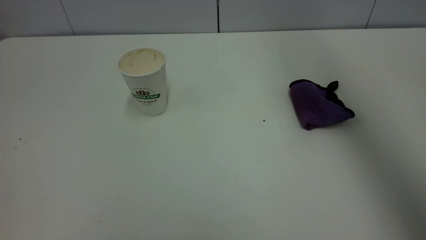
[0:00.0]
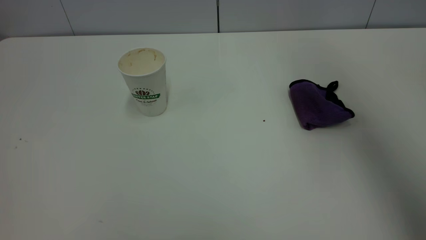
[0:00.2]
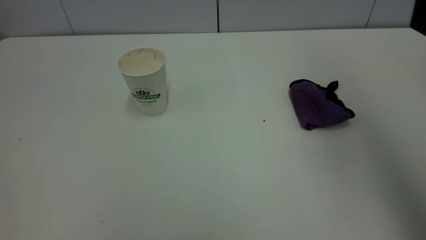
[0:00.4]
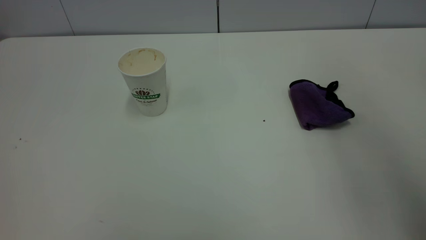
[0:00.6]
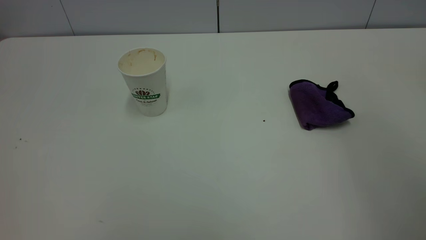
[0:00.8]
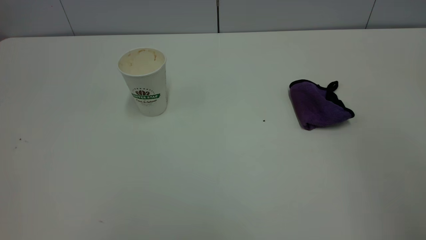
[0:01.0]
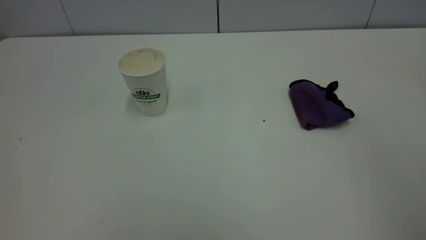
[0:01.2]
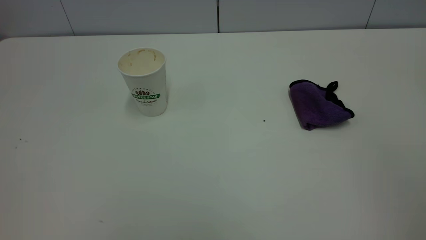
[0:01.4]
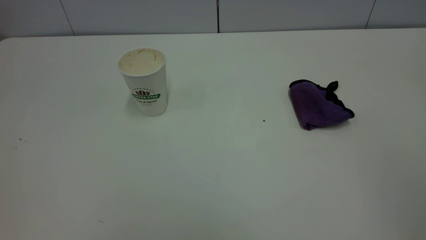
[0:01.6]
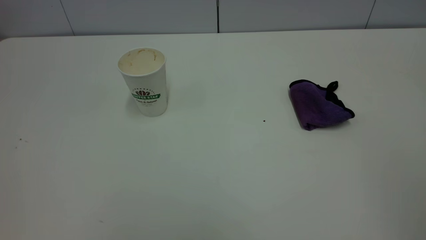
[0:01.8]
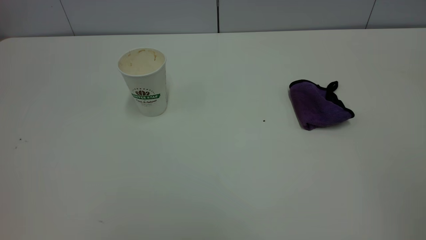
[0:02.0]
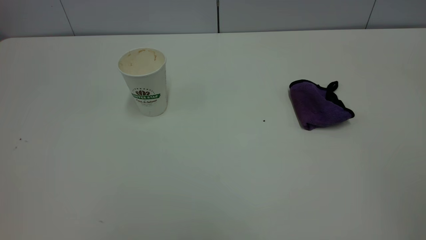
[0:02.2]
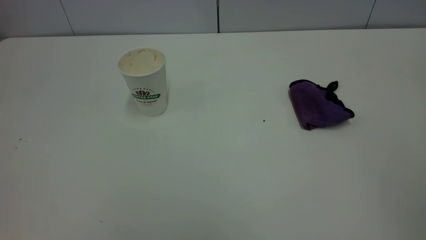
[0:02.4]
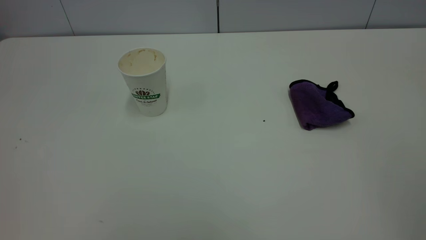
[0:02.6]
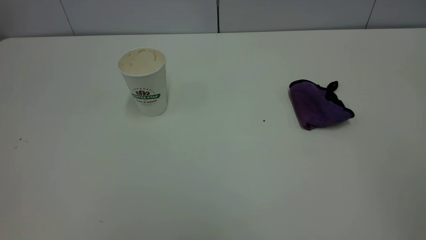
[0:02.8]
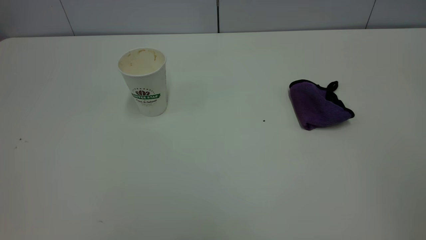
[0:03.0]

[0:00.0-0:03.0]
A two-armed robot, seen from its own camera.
Task of the whole recording: the left gripper pick up the fallen cup and place it upright, the right gripper grasp the purple rag and wipe the tea stain on the table, the right gripper put the purple rag back in its original position.
0:00.0 to 0:01.6: The right gripper travels backward by approximately 40 cm.
